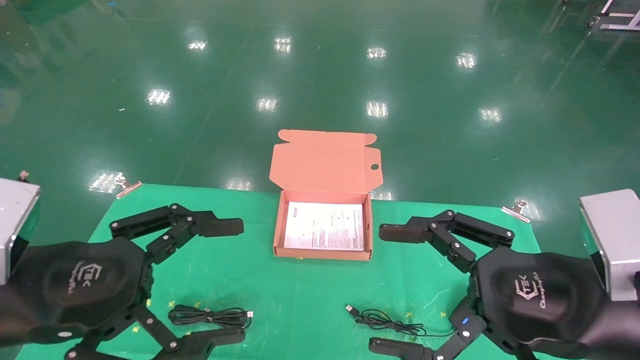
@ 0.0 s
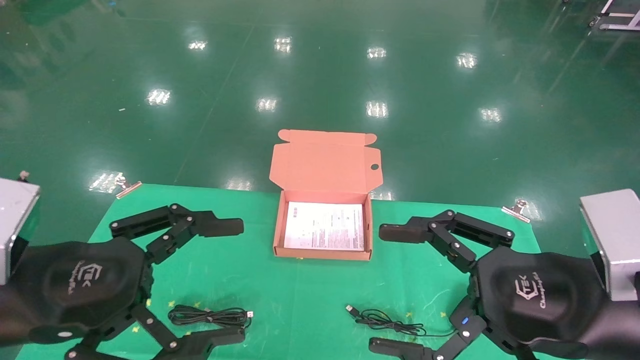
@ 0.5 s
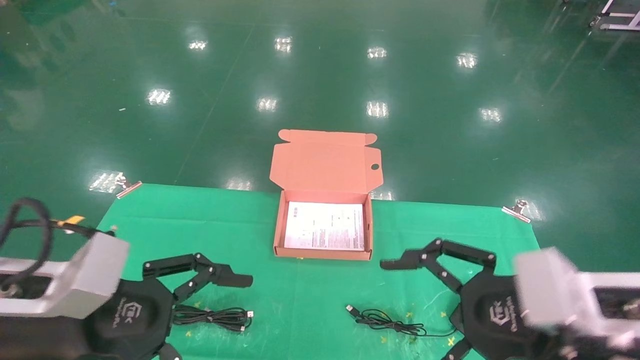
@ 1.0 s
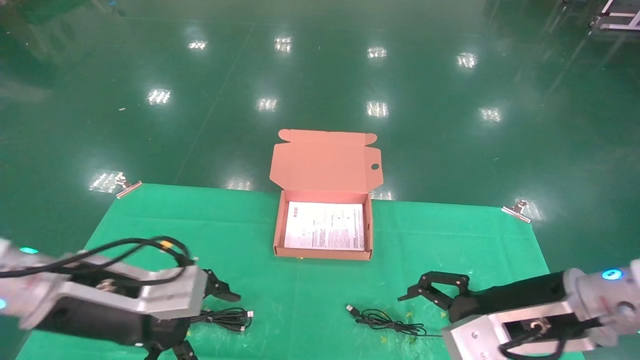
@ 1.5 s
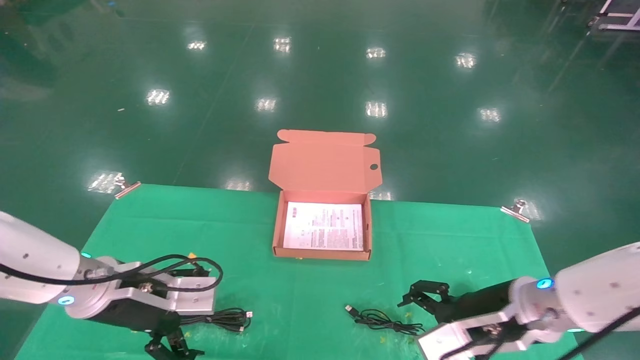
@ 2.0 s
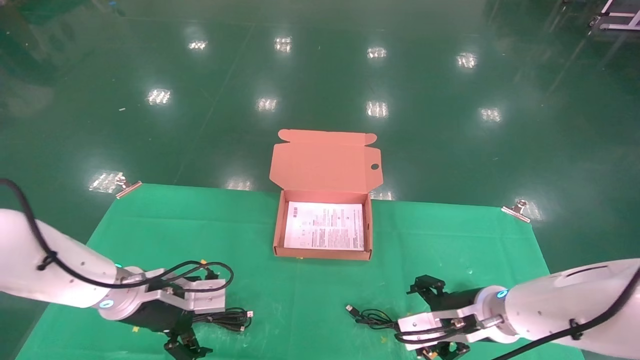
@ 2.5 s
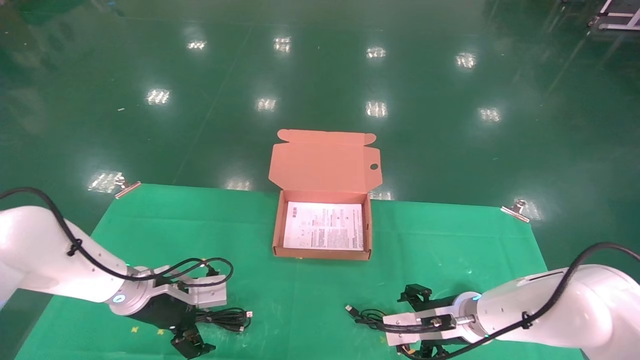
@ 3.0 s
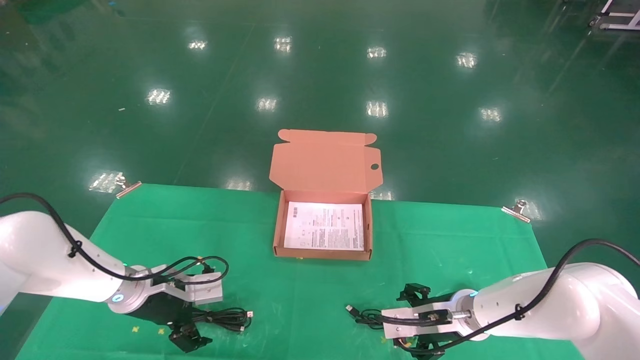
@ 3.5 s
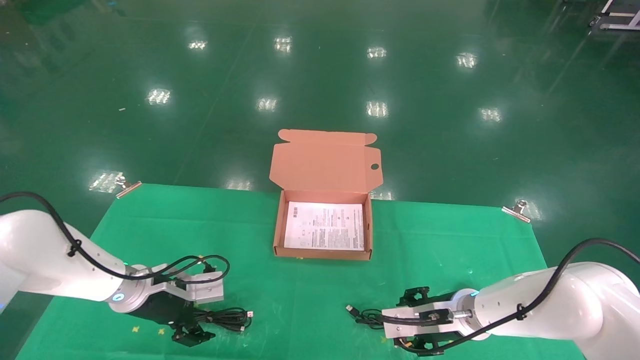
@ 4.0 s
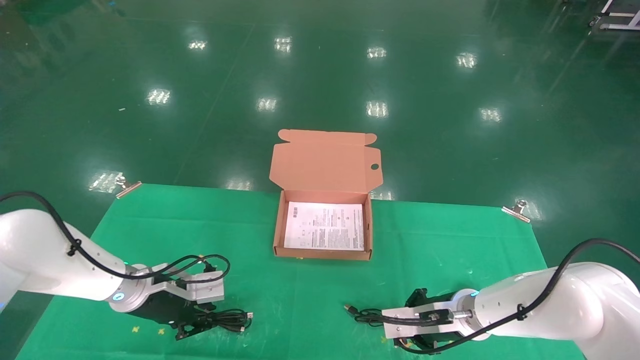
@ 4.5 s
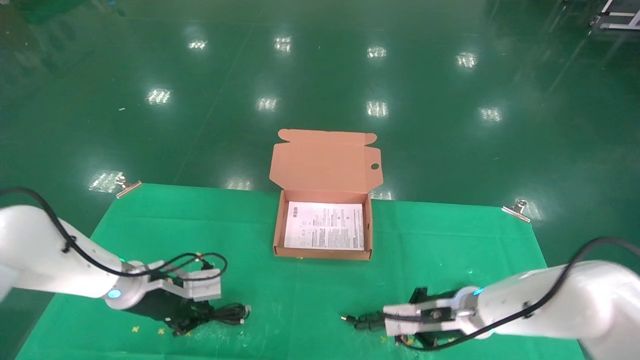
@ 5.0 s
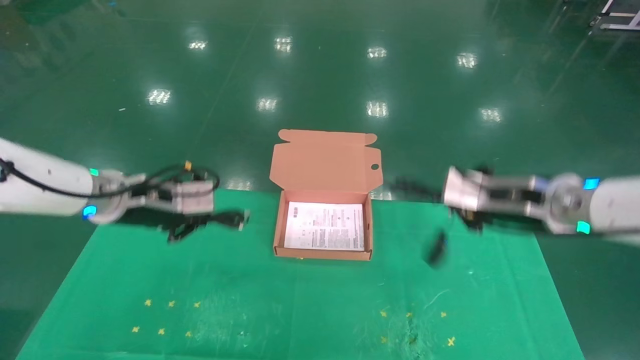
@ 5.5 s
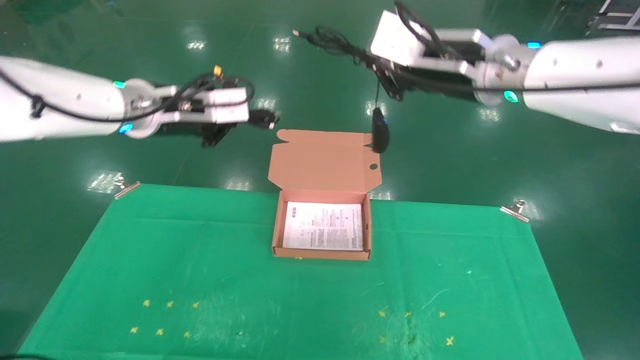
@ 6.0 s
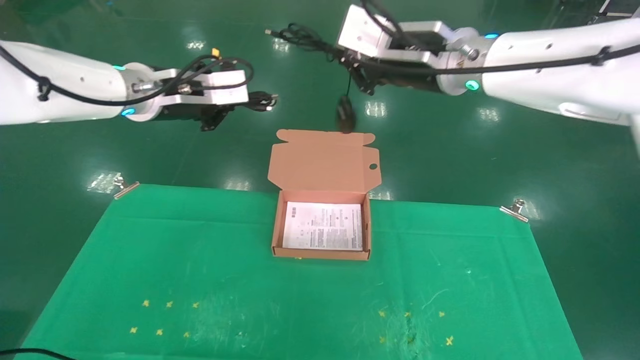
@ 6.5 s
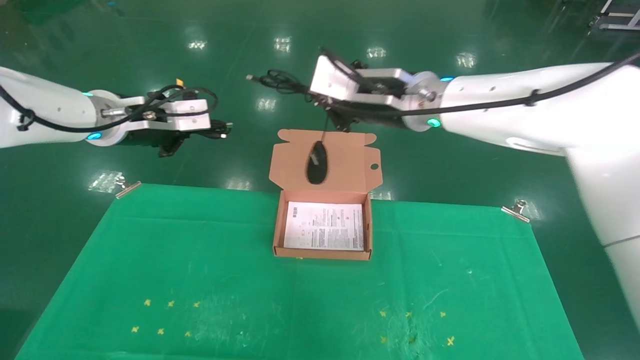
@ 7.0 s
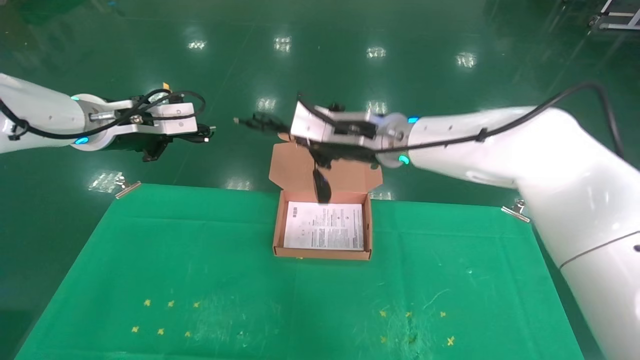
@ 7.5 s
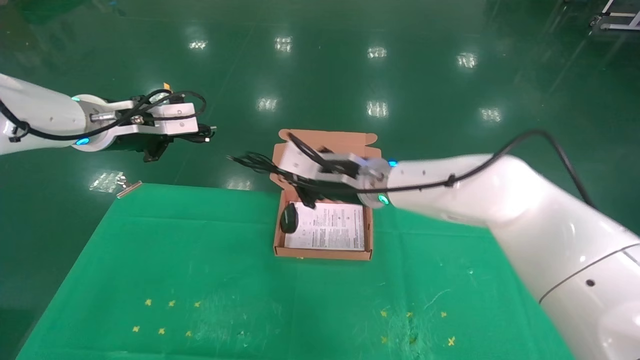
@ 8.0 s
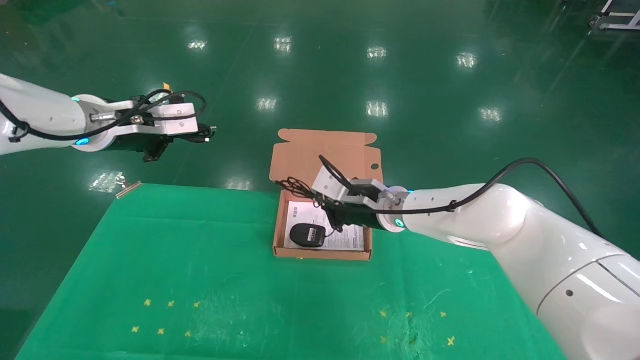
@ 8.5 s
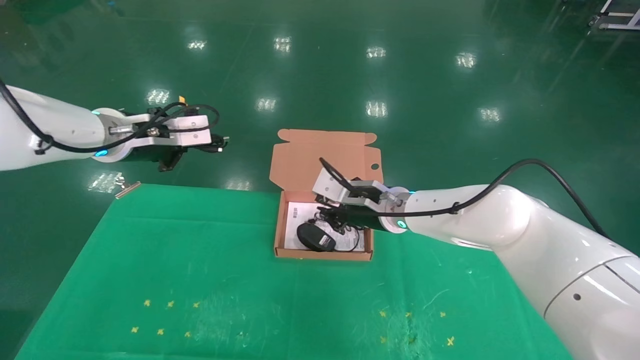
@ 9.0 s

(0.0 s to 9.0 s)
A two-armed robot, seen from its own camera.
Task of the whole recording: grasp data cable left put into box grasp mouse right put into box.
Step, 1.5 s - 5.5 s: Grab and pick up both the mouse and power cord from the accessory packaging area at the same time.
0.0 s - 2.0 s: The grippers both shift forward and downward by roughly 15 cm.
2.0 s - 4.5 s: The grippers both shift forward and downward by approximately 10 cm. The right gripper closes. Meanwhile the left gripper closes.
4.5 s - 7.0 s: The two grippers go about 30 cm upward.
7.0 s - 9.0 s: The right gripper heads downward, covering roughly 15 cm.

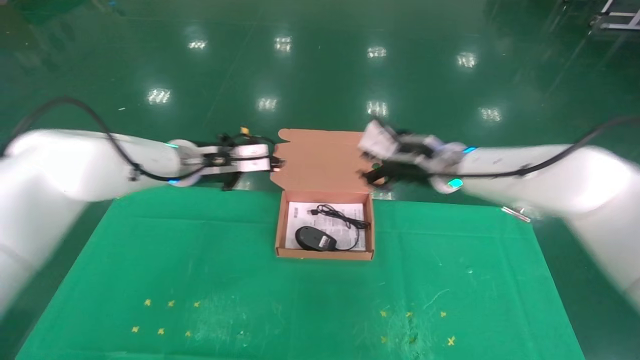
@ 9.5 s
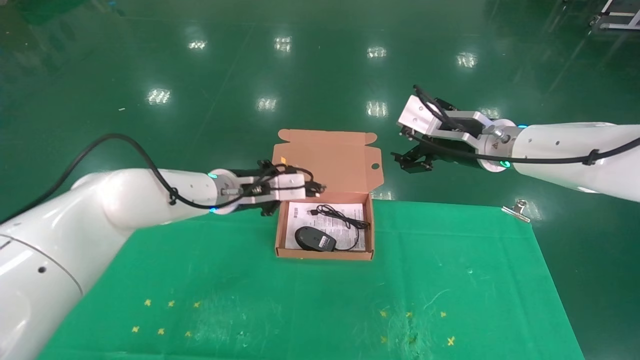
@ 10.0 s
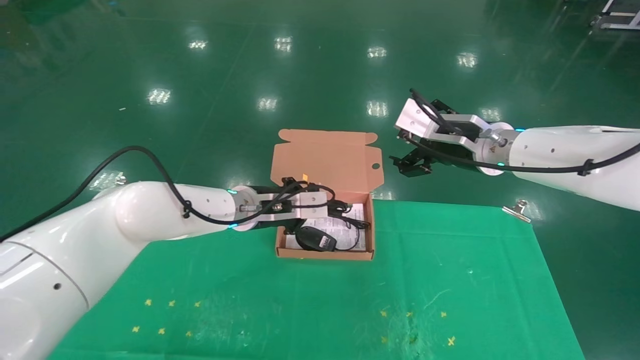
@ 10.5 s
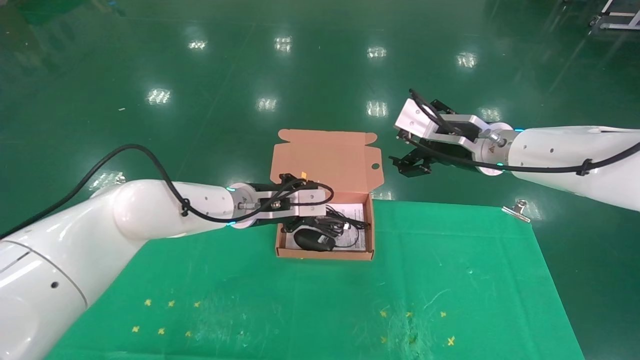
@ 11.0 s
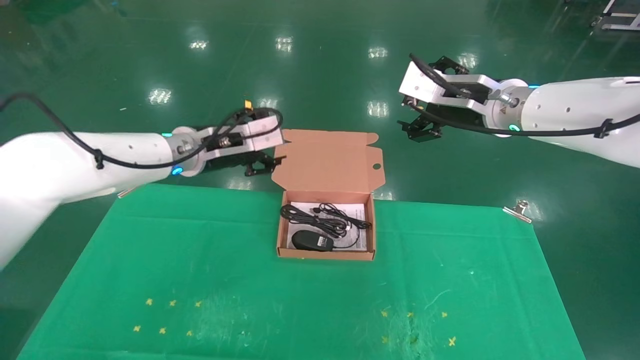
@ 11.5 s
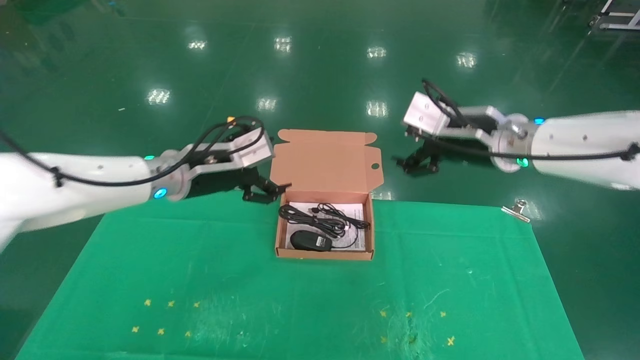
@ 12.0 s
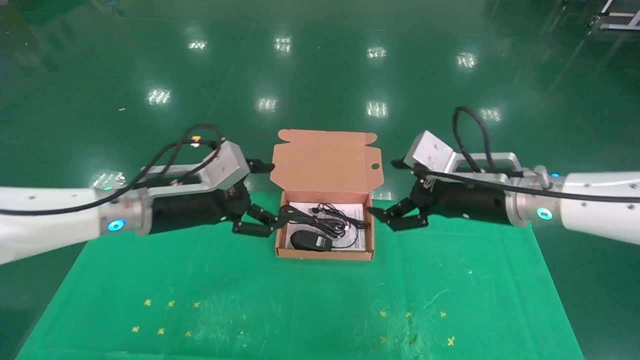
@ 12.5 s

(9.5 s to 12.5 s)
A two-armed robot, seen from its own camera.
Task of the whole recording: grasp data cable left put into box grasp mouse right put into box.
9.5 s - 11.0 s: The right gripper ends up about 5 cm from where it was, and opens; the left gripper moves to the right and downward, about 10 cm.
11.0 s - 12.5 s: The right gripper heads backward and downward, covering approximately 10 cm, while the left gripper heads to the left and backward, covering about 15 cm, and opens up.
